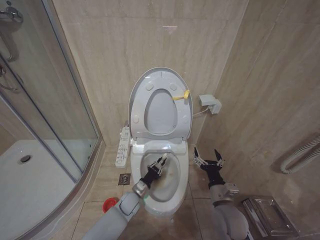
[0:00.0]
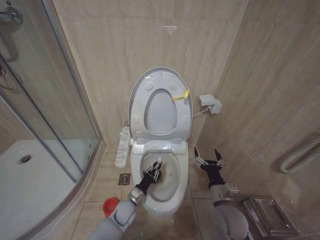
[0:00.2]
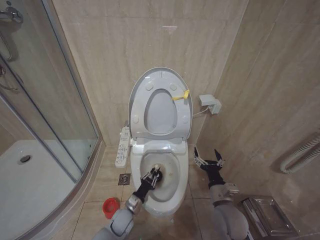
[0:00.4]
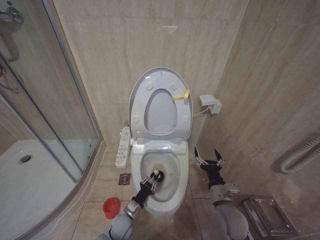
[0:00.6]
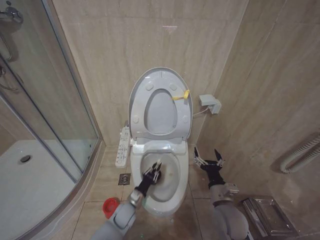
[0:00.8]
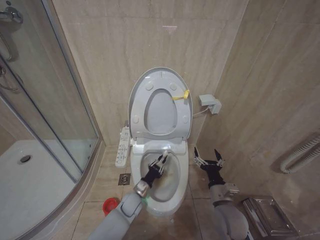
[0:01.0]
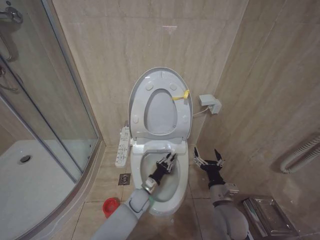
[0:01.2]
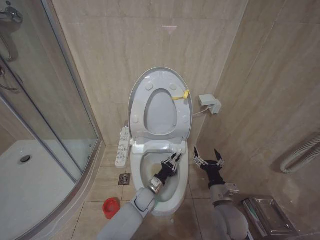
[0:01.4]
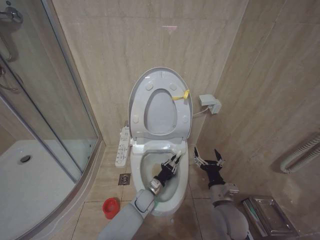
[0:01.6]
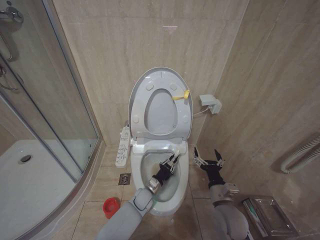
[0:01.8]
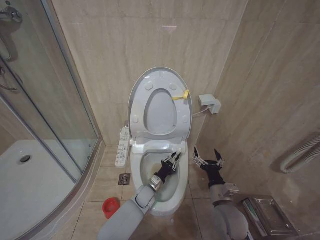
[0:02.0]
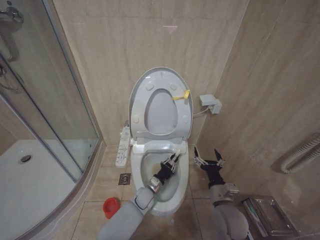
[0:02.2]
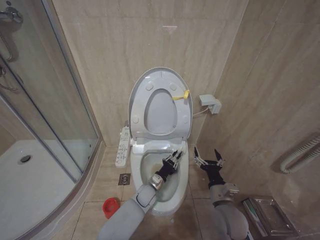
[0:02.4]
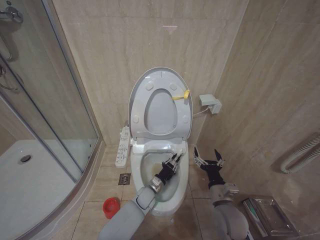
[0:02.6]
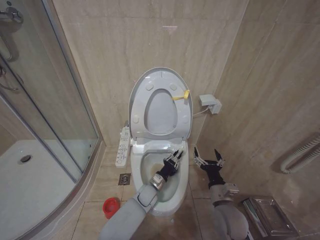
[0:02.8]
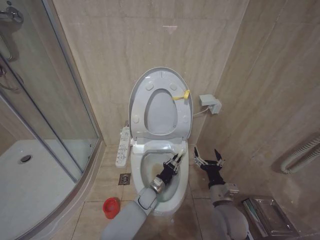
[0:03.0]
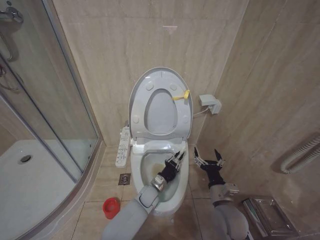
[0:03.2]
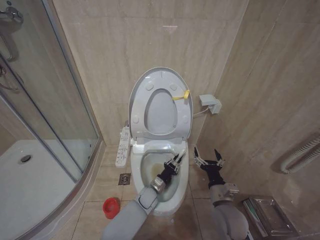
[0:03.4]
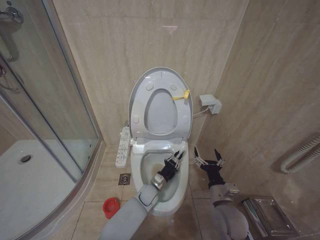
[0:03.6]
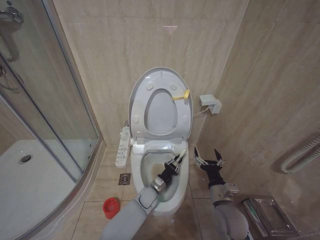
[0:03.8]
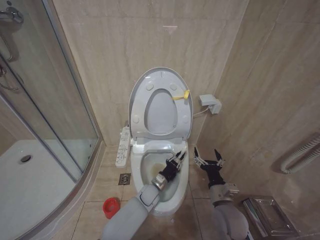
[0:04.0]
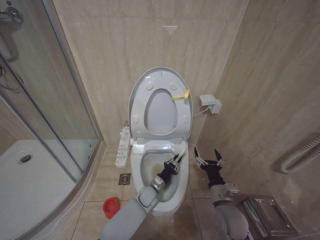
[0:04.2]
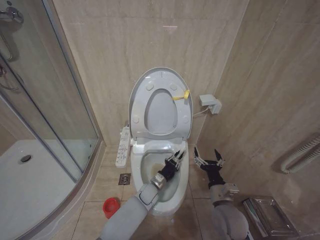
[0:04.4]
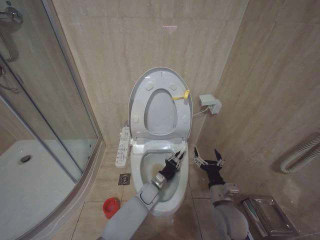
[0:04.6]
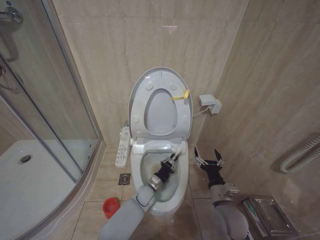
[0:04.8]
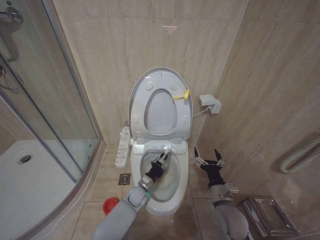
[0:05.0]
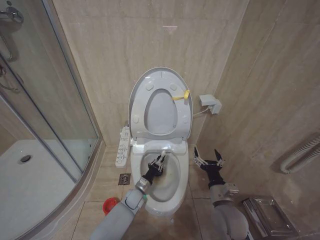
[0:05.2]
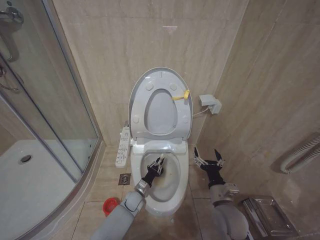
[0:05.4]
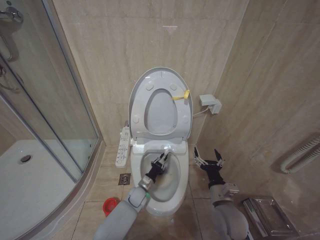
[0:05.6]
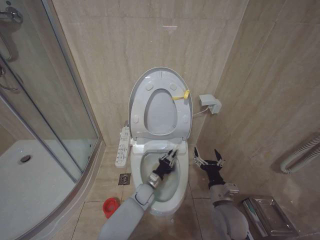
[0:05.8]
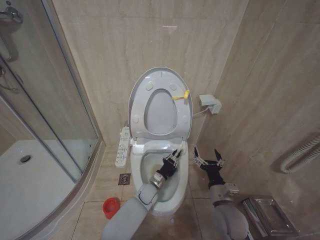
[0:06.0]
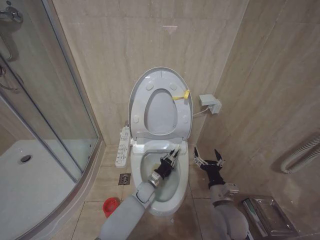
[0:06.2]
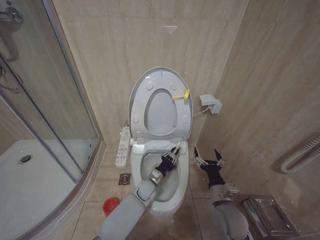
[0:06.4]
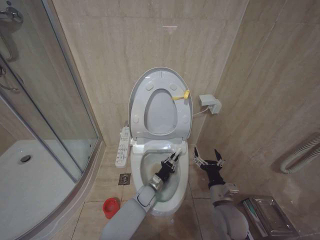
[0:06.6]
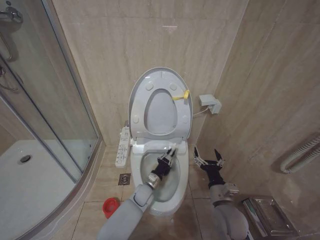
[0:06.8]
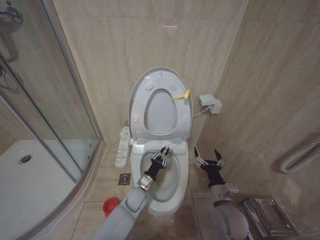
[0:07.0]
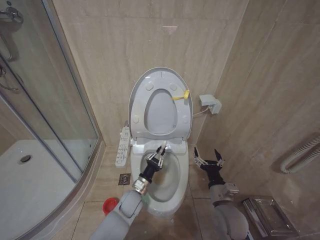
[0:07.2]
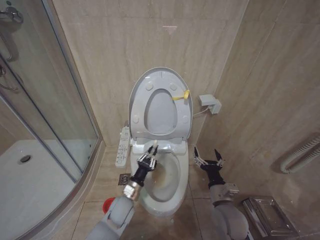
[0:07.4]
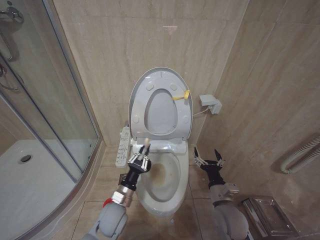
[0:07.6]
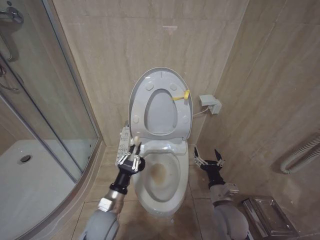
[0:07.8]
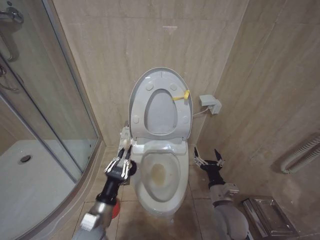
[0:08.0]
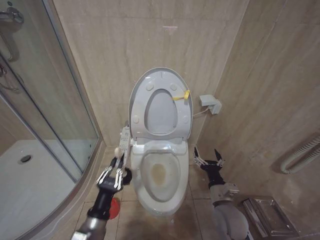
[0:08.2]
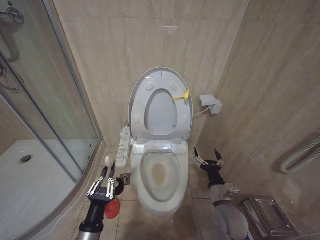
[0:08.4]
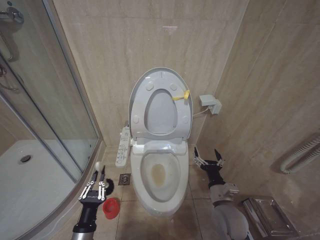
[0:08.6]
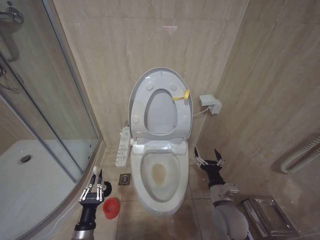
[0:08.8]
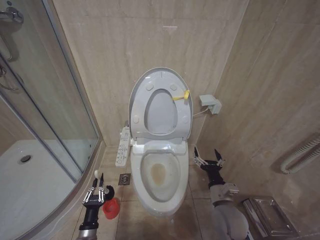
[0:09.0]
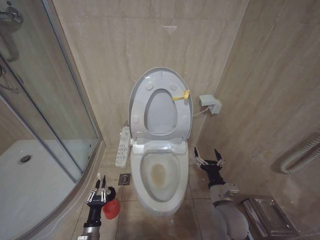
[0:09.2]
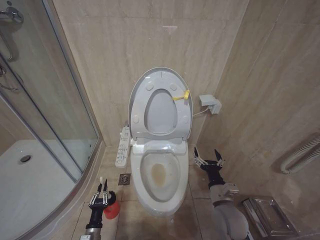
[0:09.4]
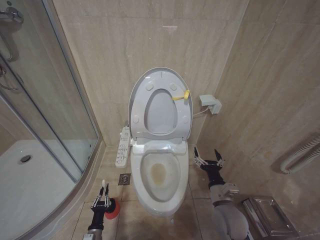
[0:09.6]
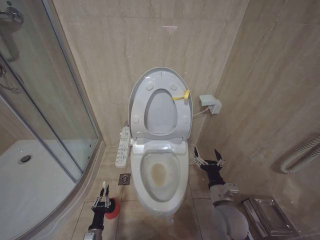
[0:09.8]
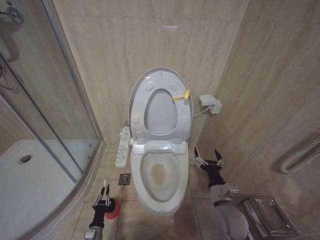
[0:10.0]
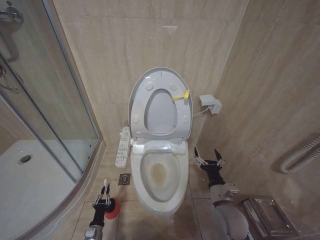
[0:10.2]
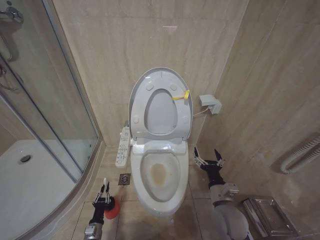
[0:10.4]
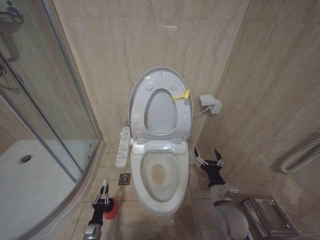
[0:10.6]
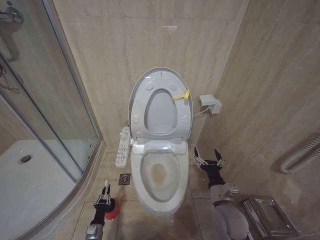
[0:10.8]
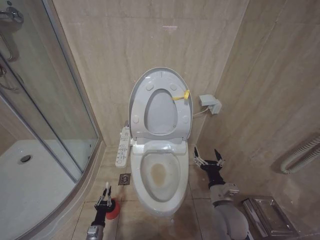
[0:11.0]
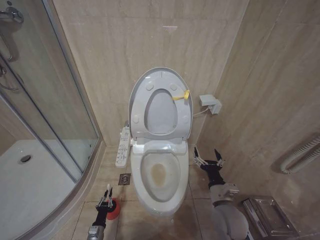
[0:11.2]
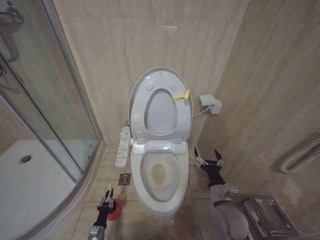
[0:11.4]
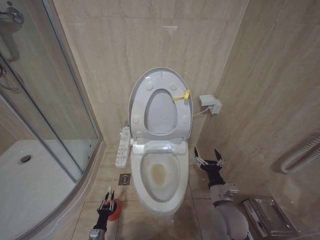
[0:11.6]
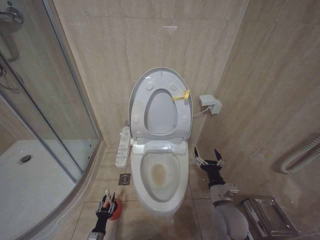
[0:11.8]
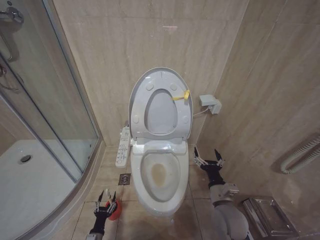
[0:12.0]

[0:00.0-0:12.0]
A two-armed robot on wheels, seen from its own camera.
Task of the whole recording: Open the toilet lid, clean the toilet bowl with a toilet brush, close the toilet lid, and flush.
0:00.0 to 0:01.6: The left gripper shifts roughly 5 cm to the right.
0:06.0 to 0:07.6: The left gripper moves to the left, backward and upward, approximately 20 cm.
0:07.6 to 0:09.0: The left gripper is displaced to the left, backward and downward by approximately 20 cm.
0:09.0 to 0:10.4: The left gripper is displaced downward by roughly 15 cm.

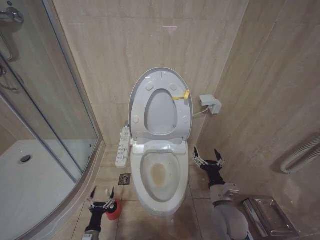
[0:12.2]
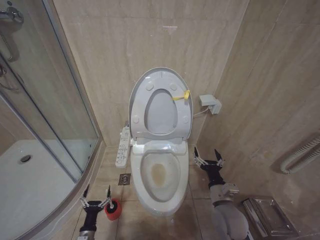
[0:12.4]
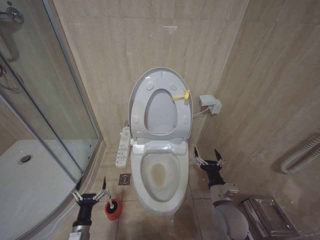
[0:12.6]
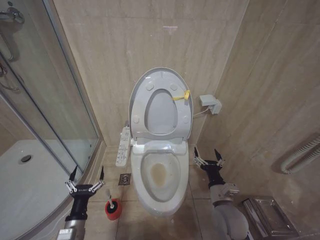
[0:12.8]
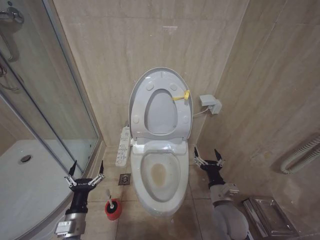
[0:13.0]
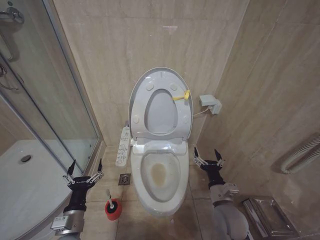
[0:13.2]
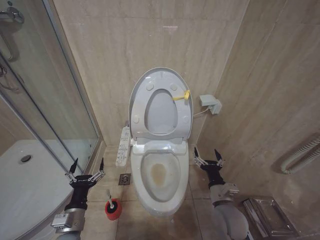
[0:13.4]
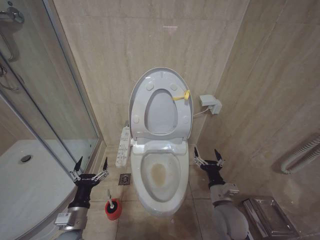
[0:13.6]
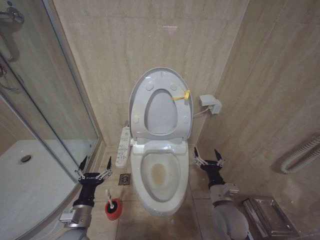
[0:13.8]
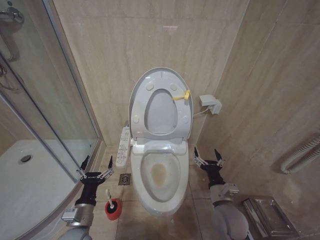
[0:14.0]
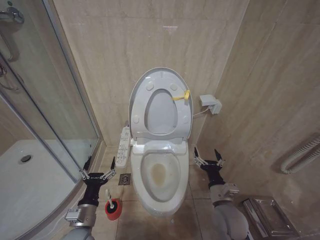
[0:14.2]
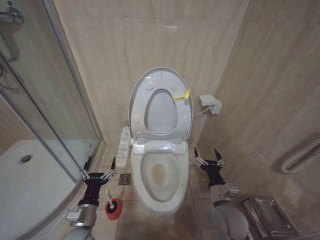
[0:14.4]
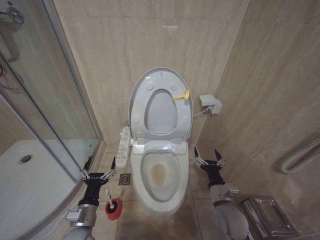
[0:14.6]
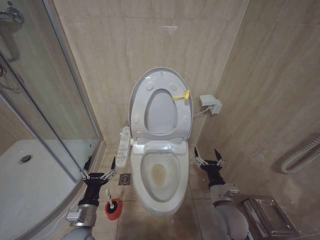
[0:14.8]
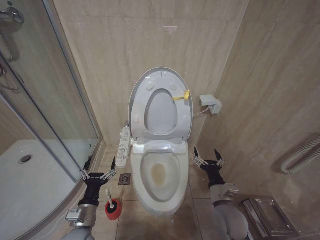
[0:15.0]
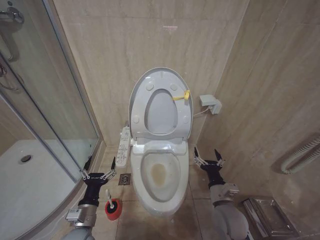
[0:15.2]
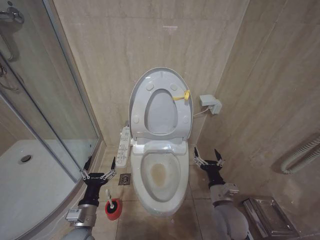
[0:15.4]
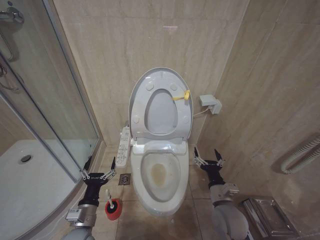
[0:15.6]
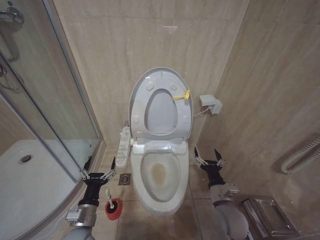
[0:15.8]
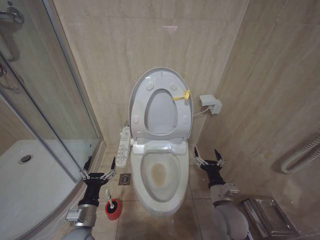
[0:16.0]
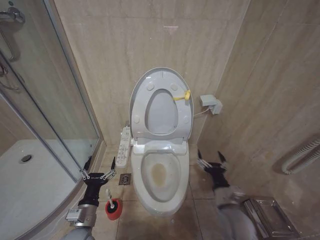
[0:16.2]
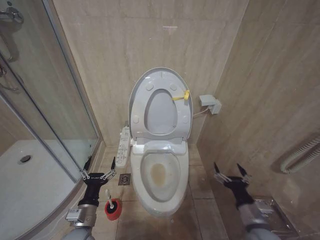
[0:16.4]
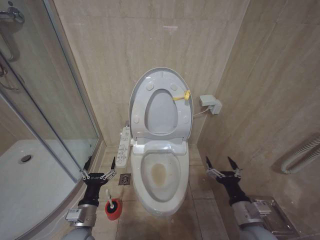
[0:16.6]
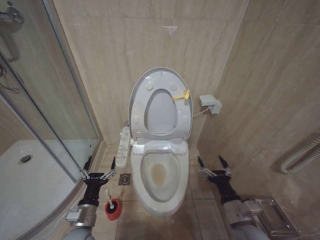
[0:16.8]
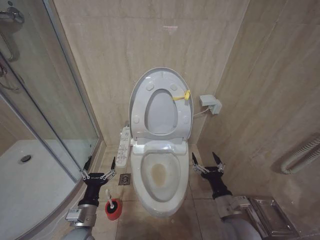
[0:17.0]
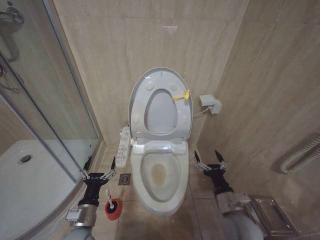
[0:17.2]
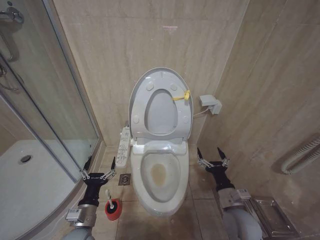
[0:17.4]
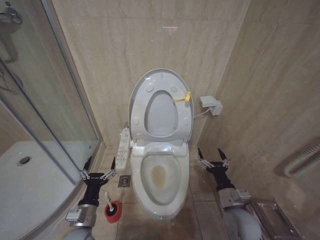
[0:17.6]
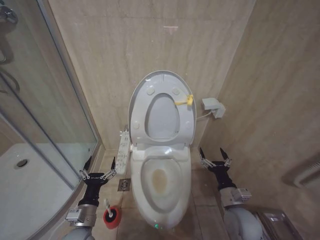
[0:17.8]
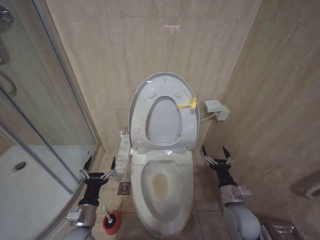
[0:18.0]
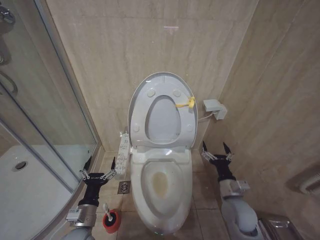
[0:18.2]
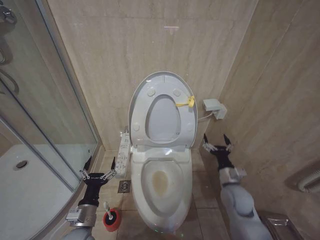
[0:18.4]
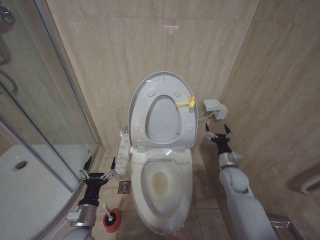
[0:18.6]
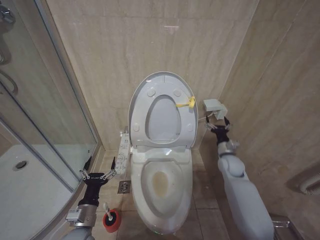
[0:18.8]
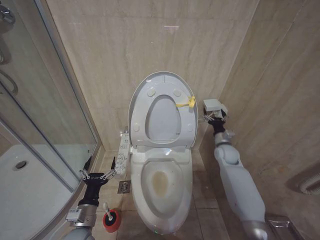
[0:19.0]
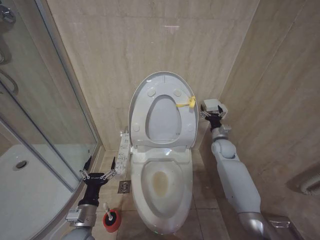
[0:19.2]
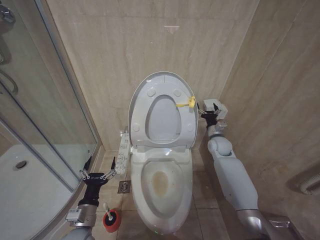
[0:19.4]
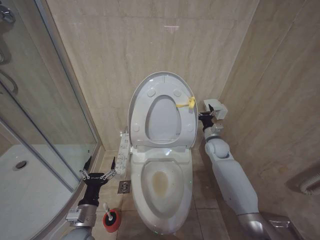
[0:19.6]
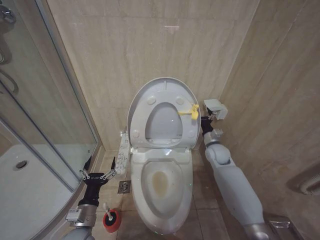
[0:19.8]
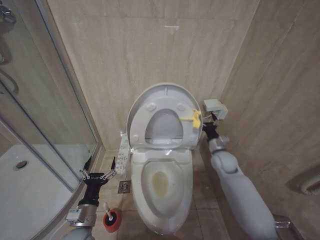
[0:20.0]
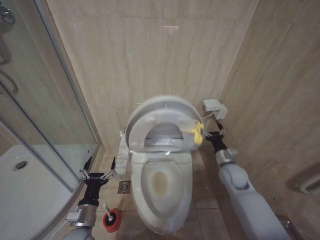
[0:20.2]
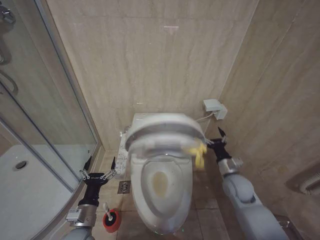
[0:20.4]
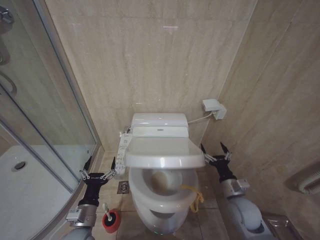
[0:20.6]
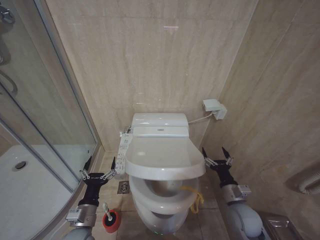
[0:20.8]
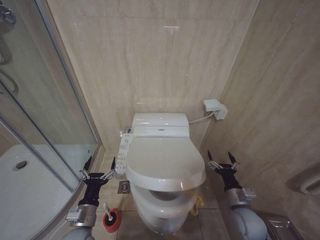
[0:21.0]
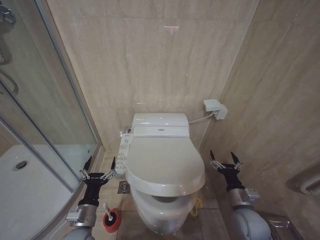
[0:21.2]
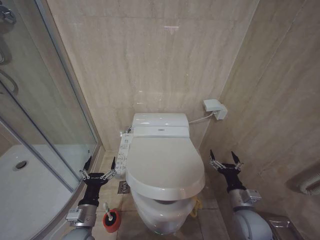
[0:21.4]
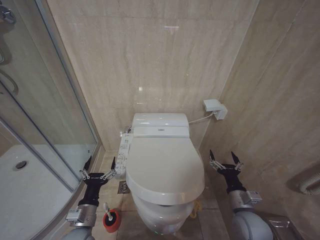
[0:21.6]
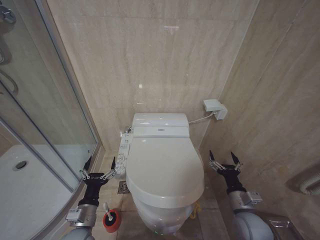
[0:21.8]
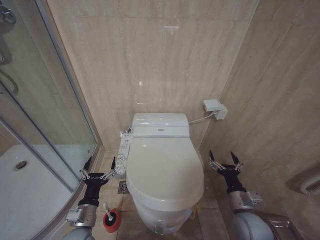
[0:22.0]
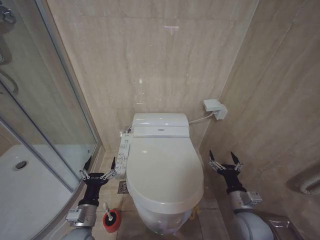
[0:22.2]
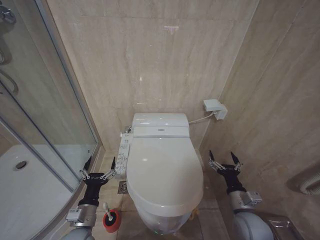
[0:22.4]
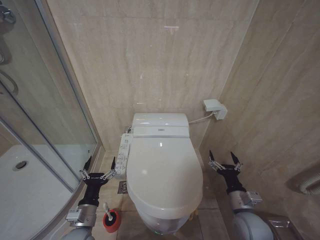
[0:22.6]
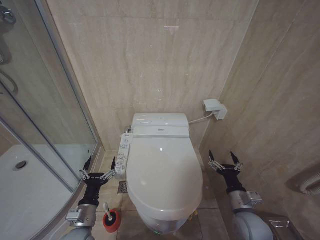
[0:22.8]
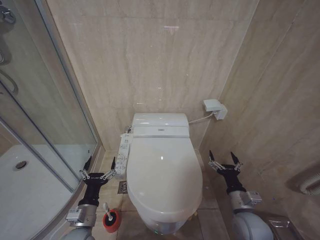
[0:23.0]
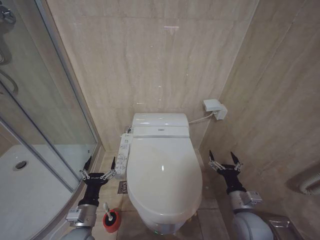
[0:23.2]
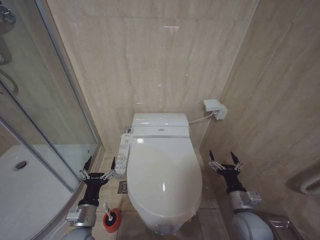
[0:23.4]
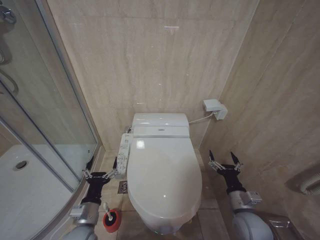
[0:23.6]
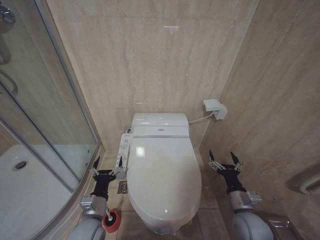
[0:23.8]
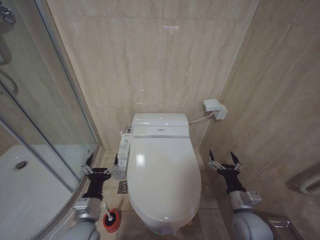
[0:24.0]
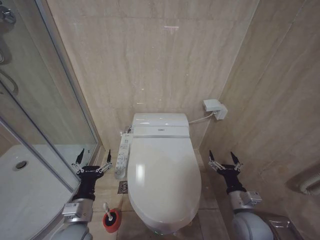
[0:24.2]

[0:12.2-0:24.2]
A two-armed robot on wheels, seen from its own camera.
Task of the whole recording: Open the toilet lid, clean the toilet bowl with a toilet brush, close the toilet lid, and flush.
0:12.2 to 0:13.8: The left gripper is displaced upward by about 25 cm, and opens its fingers.
0:13.8 to 0:15.2: The grippers stay close to where they were, moving slightly.
0:15.2 to 0:16.6: The right gripper heads backward and to the right, covering about 10 cm.
0:16.6 to 0:18.2: The right gripper shifts roughly 10 cm forward.
0:18.2 to 0:19.8: The right gripper heads forward, covering some 25 cm.
0:19.8 to 0:21.2: The right gripper heads backward, covering approximately 25 cm.
0:21.2 to 0:22.6: The grippers stay close to where they were, moving slightly.
0:22.6 to 0:24.2: The left gripper travels upward by approximately 5 cm.
